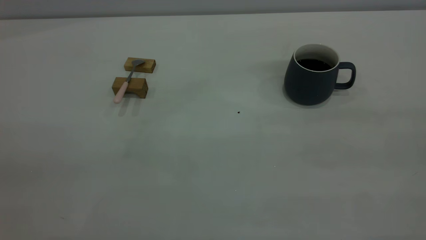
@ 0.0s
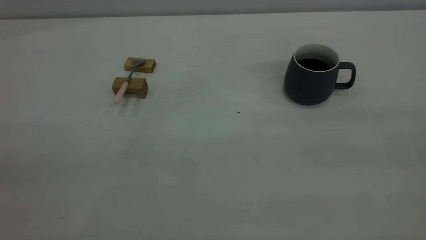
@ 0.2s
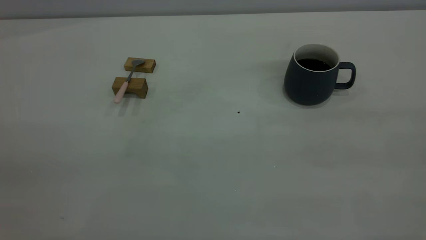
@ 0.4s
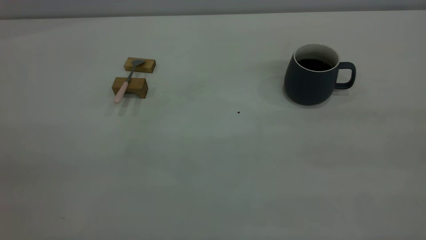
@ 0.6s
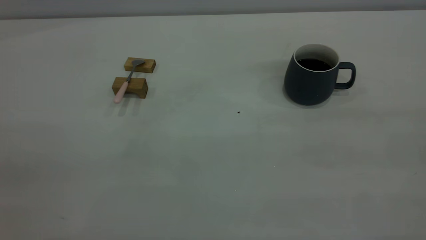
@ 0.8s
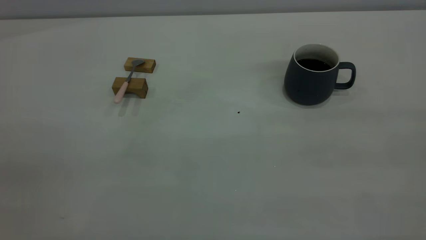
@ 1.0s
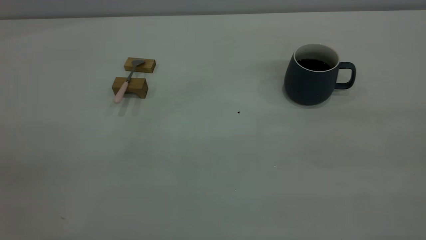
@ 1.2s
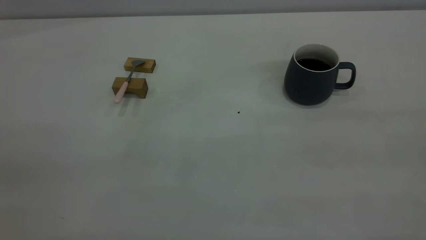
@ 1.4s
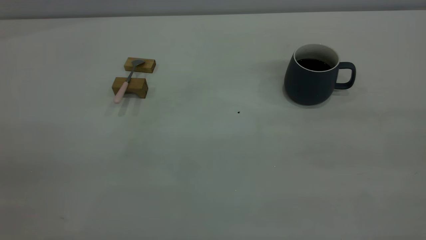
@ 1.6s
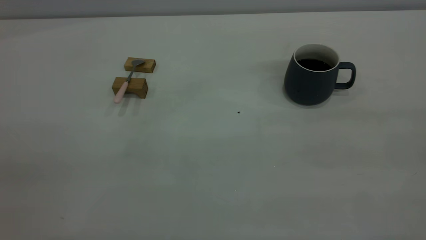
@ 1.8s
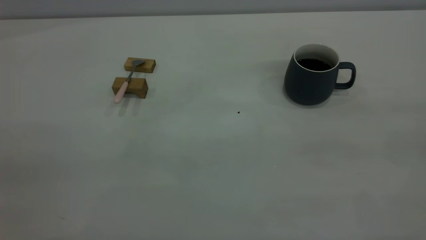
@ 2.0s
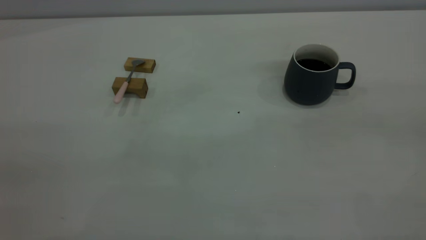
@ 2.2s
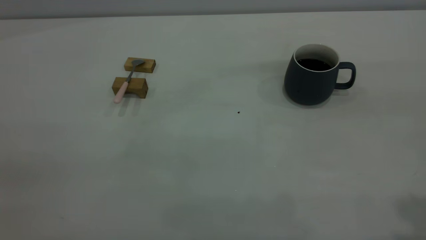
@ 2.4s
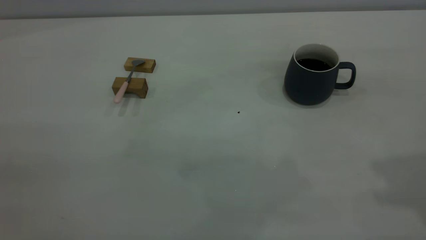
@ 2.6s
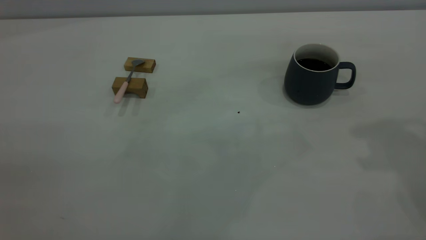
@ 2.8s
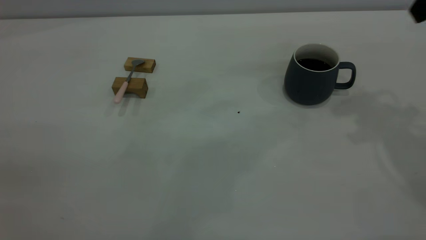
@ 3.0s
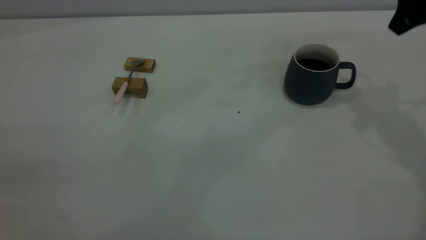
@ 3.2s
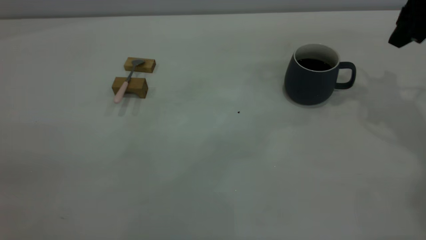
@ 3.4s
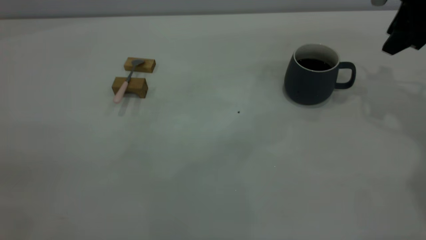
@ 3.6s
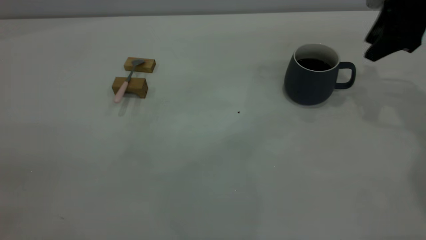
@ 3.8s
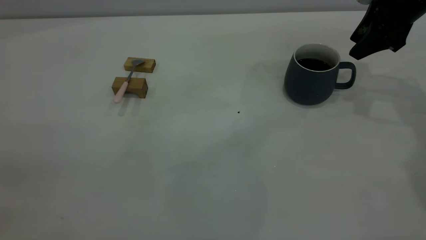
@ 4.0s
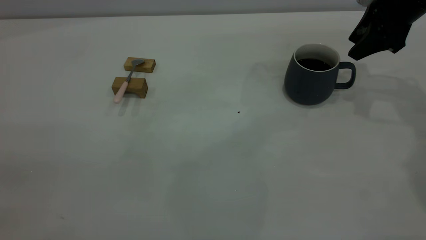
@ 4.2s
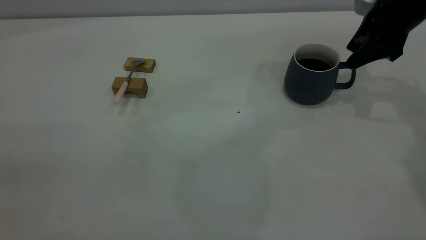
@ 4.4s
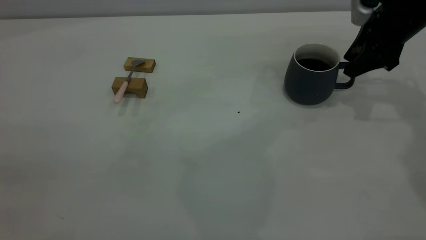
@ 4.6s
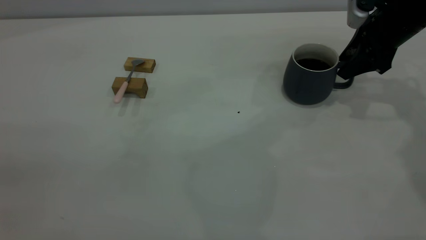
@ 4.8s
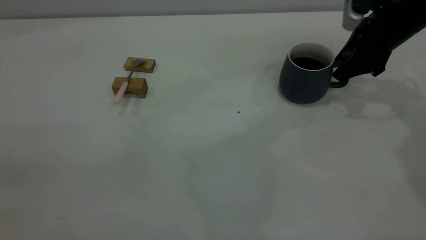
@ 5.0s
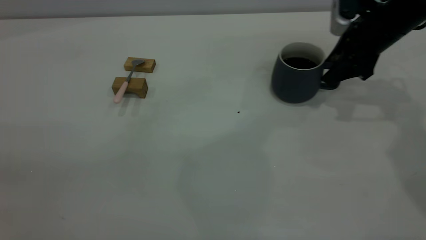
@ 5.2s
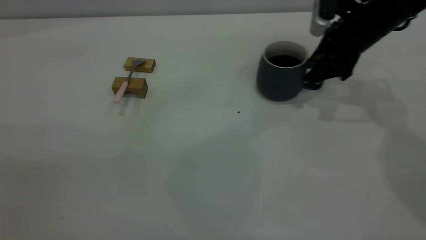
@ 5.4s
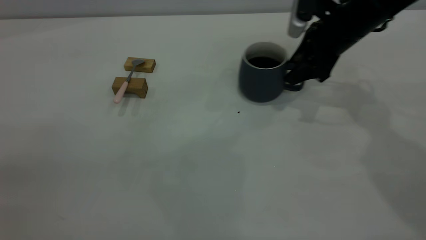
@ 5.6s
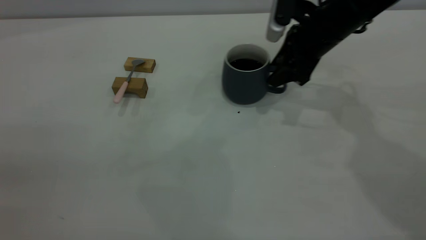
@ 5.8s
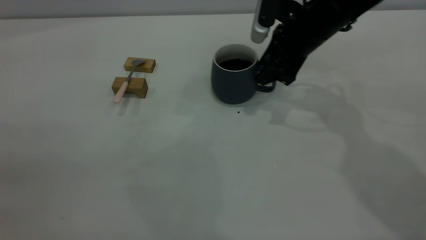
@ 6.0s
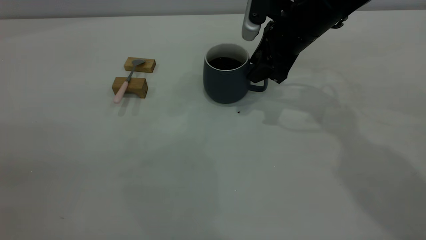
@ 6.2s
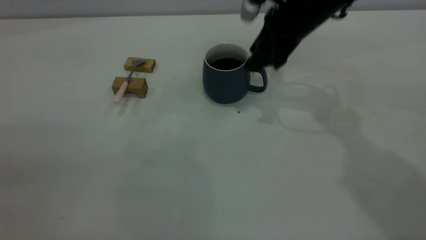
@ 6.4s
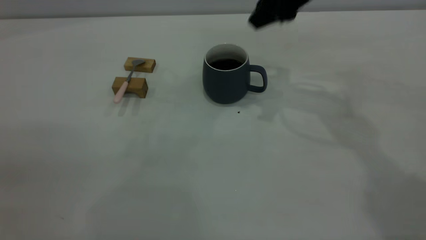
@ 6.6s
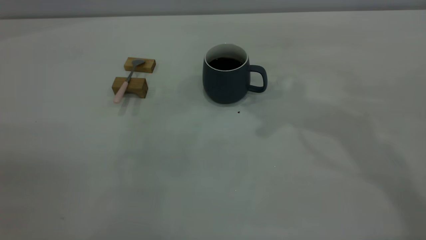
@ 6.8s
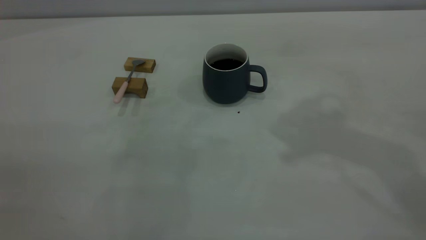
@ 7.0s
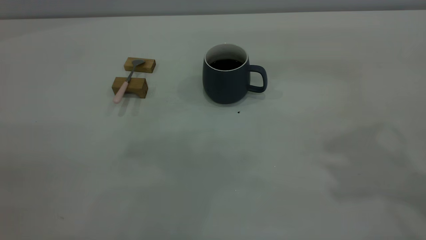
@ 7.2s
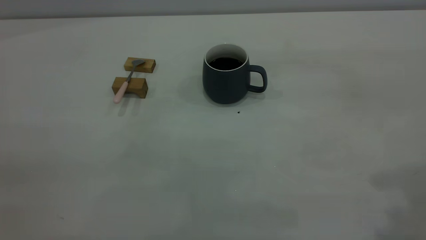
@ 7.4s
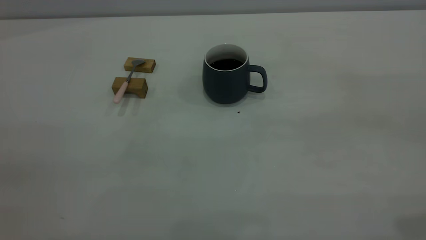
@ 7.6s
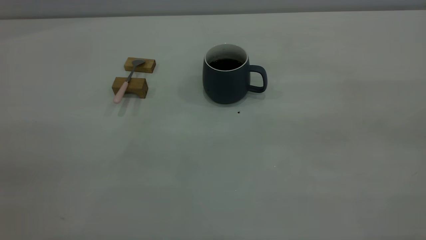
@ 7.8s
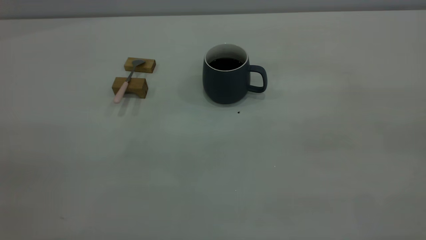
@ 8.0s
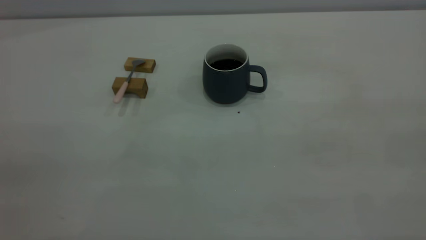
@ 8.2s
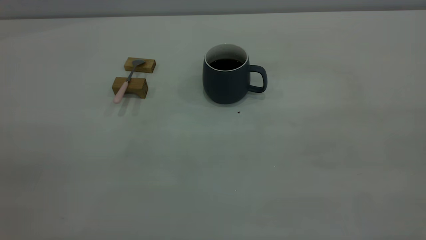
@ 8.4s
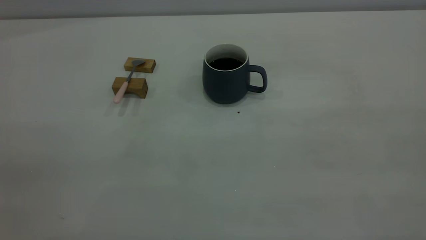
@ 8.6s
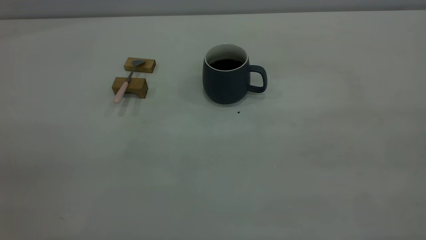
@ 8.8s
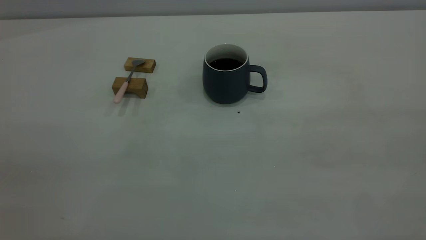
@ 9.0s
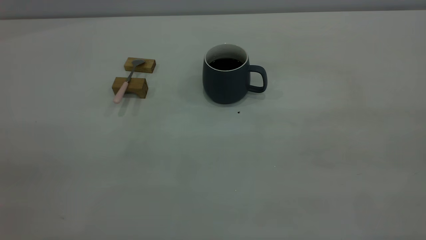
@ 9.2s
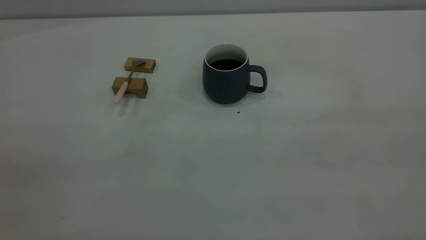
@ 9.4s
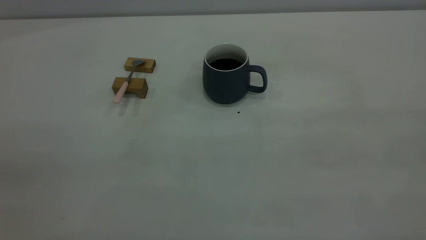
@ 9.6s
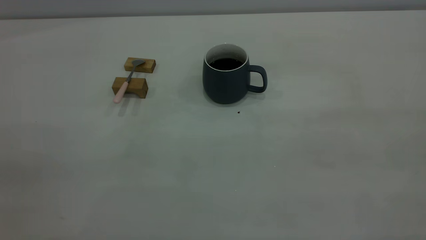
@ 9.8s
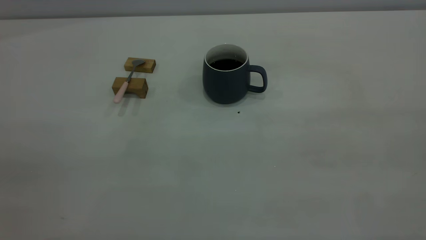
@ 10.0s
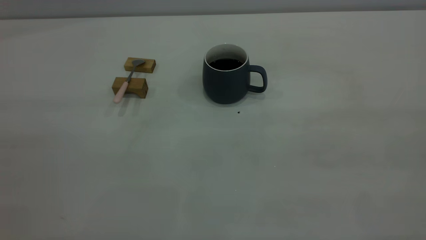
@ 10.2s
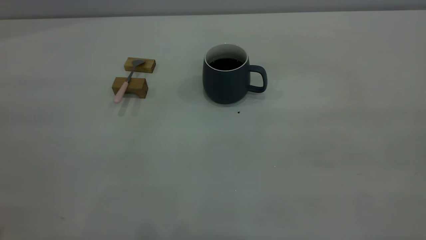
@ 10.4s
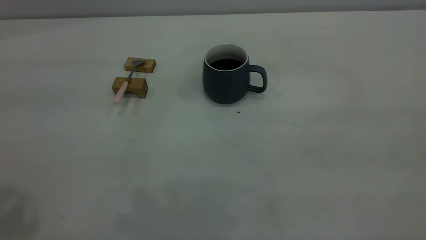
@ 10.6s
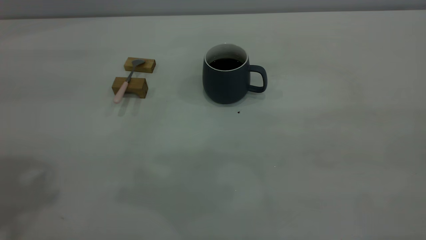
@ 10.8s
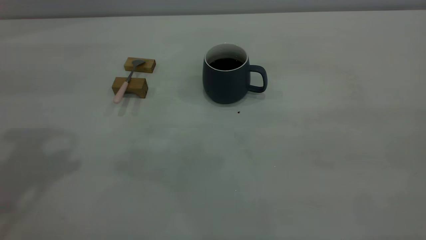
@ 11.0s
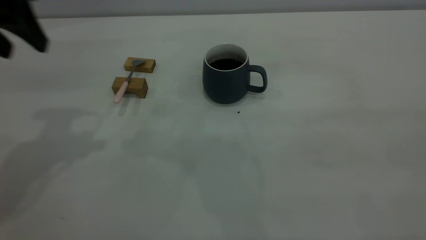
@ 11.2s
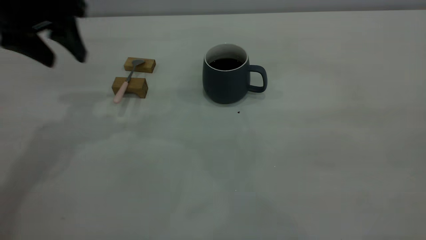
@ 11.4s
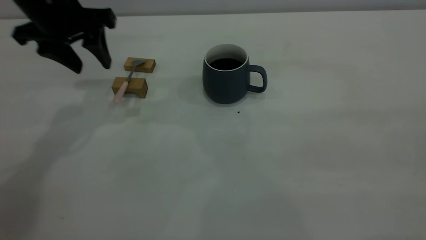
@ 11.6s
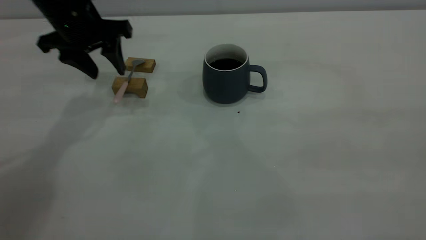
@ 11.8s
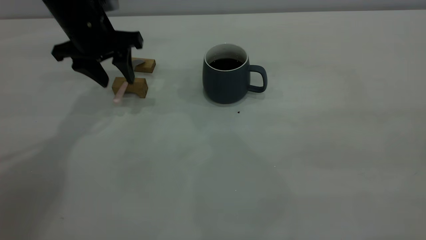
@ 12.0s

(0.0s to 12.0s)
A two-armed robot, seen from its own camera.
Step, 0.0s - 6.4s: Move the cup with coffee to the center of view.
0.0s - 1.6s: Both grippers stay put.
3.0s - 4.4s: The right gripper travels downward and forward by roughly 15 cm.
4.4s - 6.0s: The right gripper moves to the left, some 15 cm.
6.0s - 7.6s: The right gripper goes about 40 cm backward, upward and to the right.
10.4s - 12.0s: The left gripper heads forward and downward, covering about 40 cm.

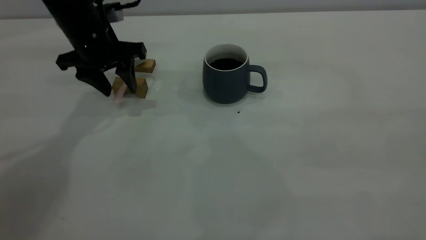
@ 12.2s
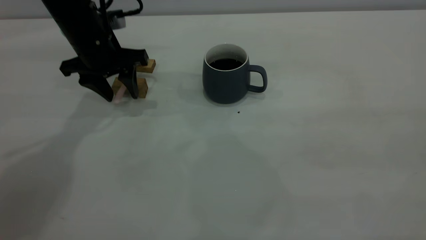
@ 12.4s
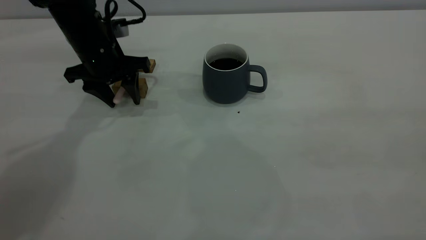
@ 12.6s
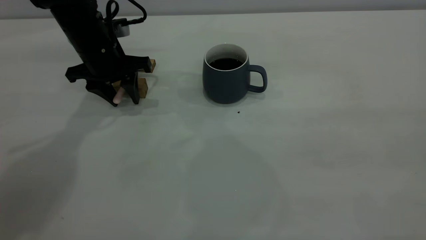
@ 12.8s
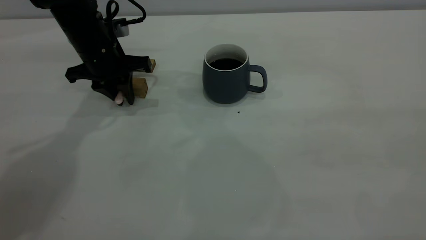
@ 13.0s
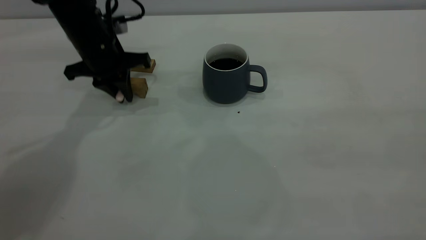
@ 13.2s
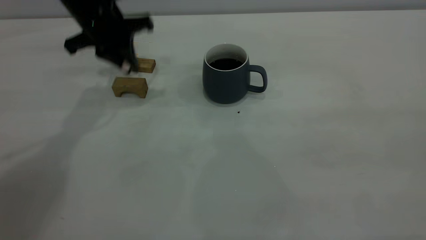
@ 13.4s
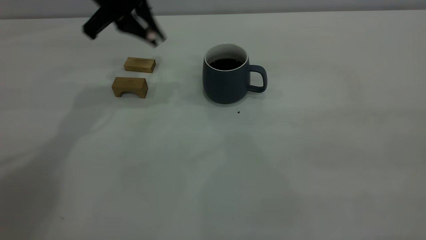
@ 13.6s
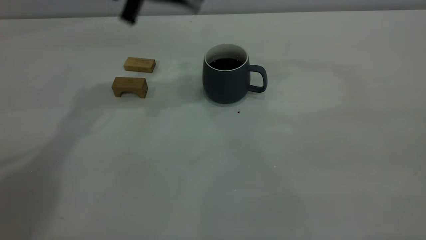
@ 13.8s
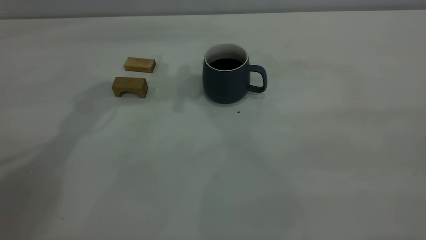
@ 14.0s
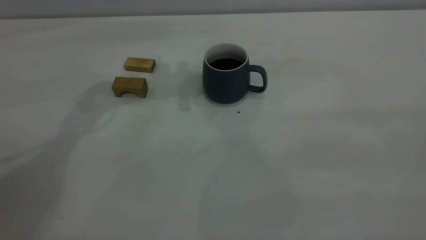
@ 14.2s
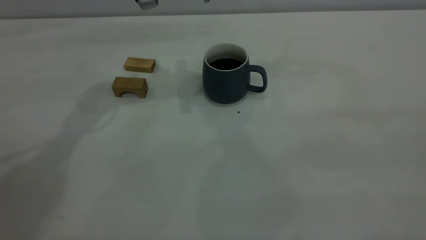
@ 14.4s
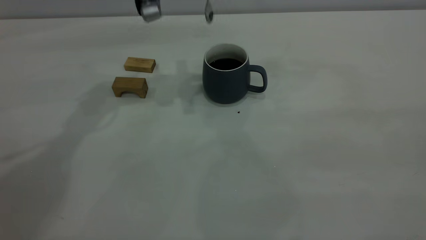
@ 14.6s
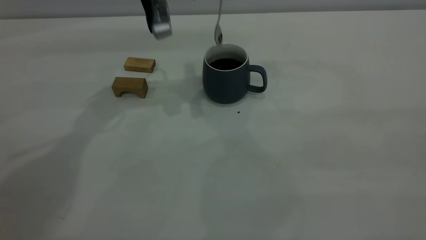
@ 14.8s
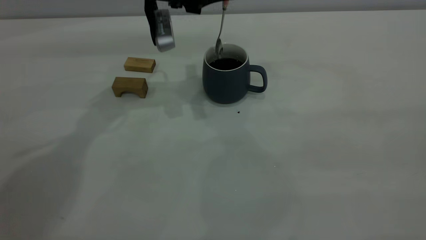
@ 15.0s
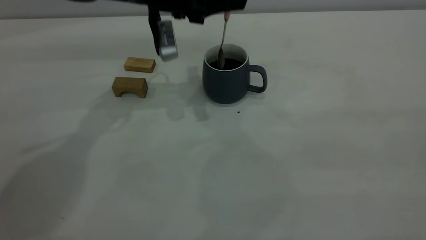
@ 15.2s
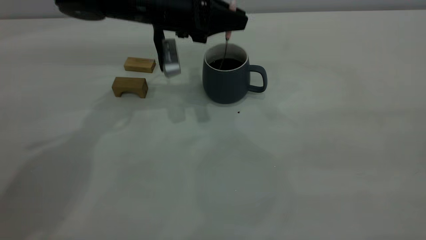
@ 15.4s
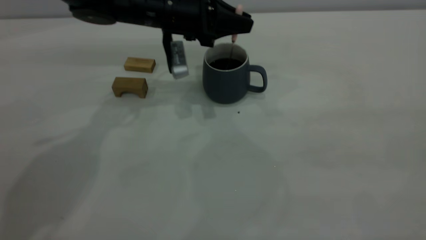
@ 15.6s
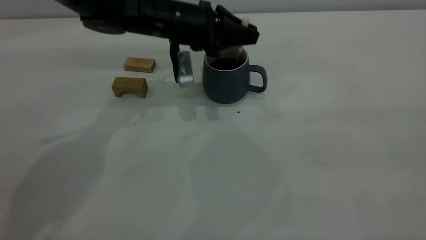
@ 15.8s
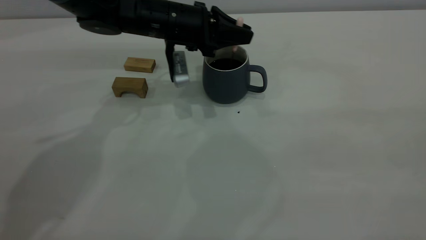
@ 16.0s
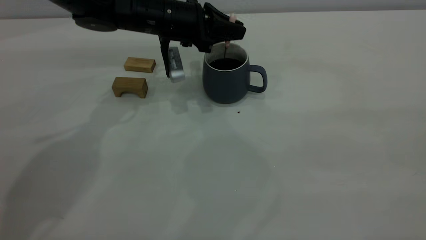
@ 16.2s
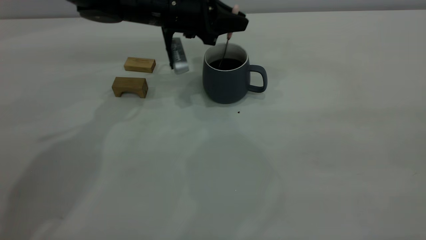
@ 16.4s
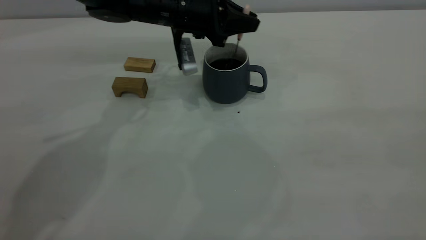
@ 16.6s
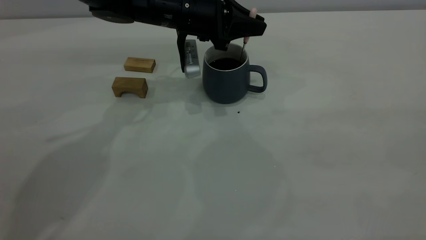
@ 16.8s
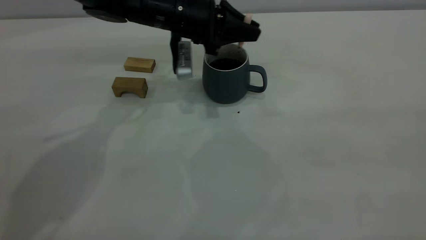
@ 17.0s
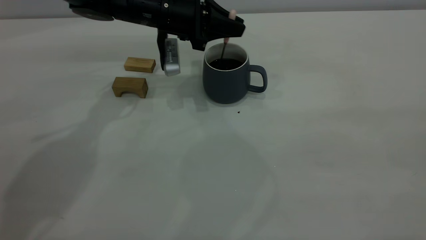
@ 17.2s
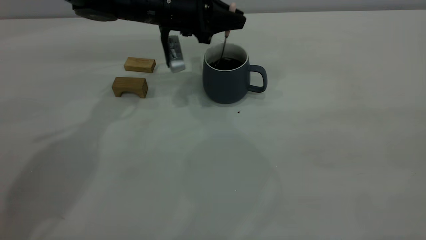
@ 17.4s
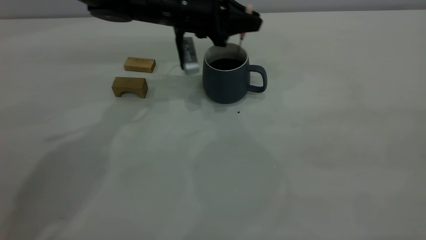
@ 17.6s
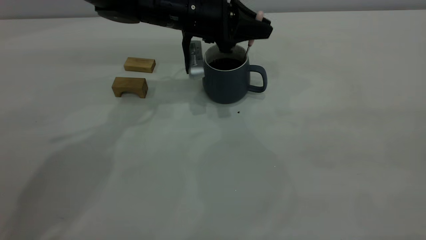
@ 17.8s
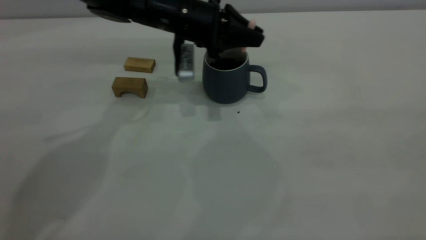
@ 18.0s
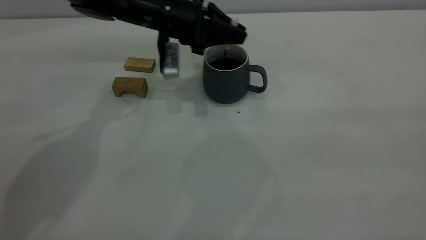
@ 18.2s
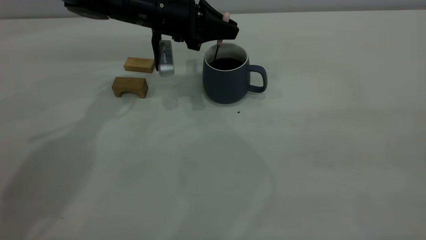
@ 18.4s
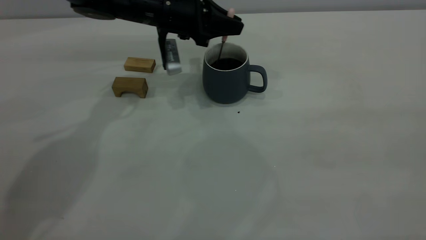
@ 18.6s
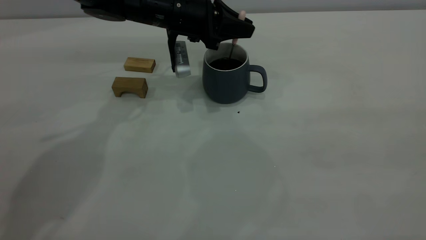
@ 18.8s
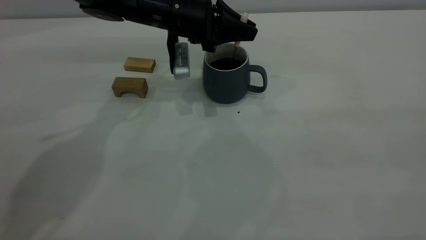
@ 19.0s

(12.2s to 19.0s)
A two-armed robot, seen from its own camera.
12.2s - 13.6s: The left gripper is displaced upward by about 10 cm, and closes its fingers.
13.6s - 15.0s: The left gripper is displaced to the right by about 5 cm.
15.0s - 16.2s: The left gripper goes some 5 cm downward.
16.2s - 19.0s: The grippers stay close to where they were, moving slightly.
